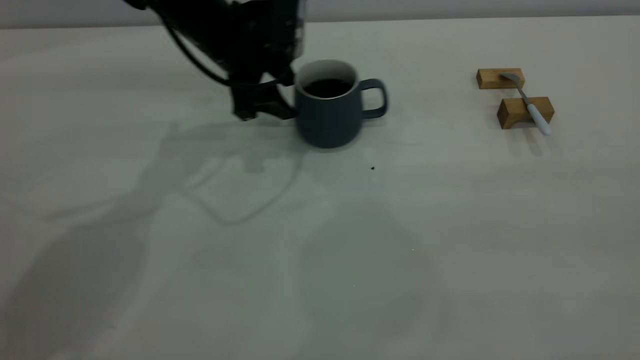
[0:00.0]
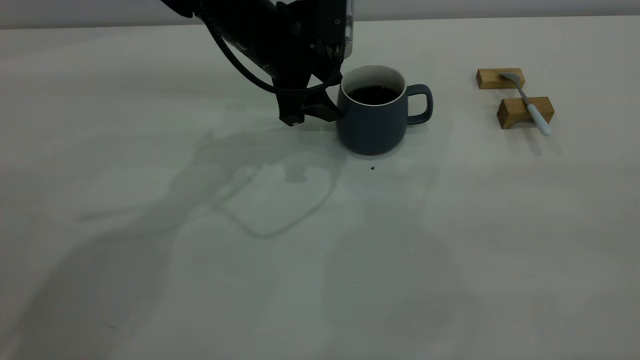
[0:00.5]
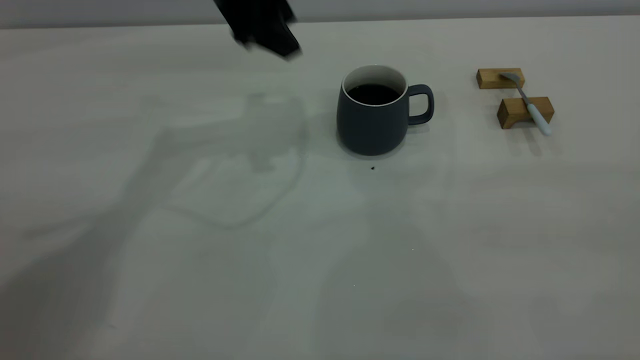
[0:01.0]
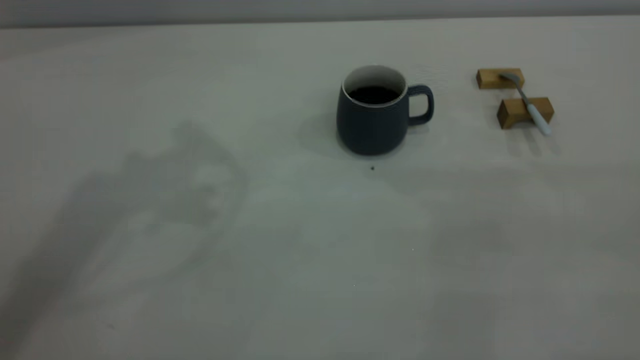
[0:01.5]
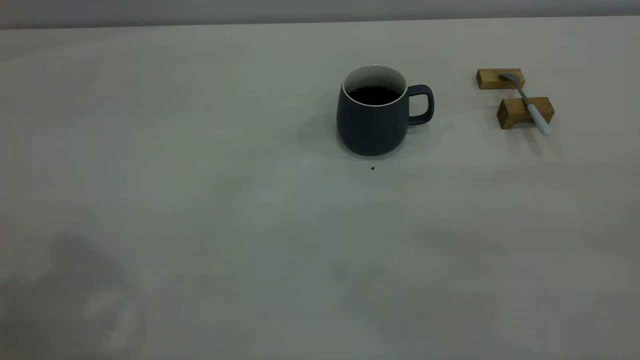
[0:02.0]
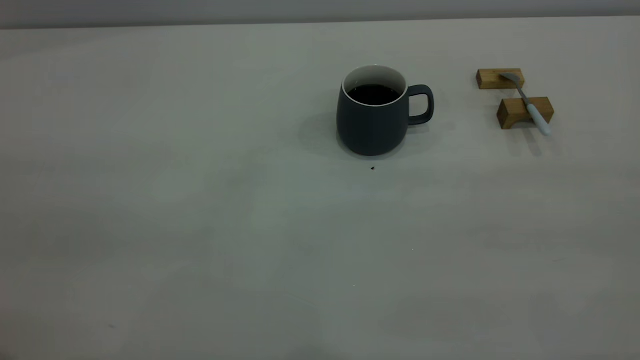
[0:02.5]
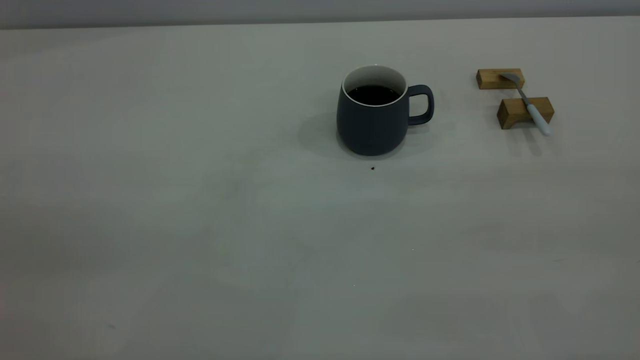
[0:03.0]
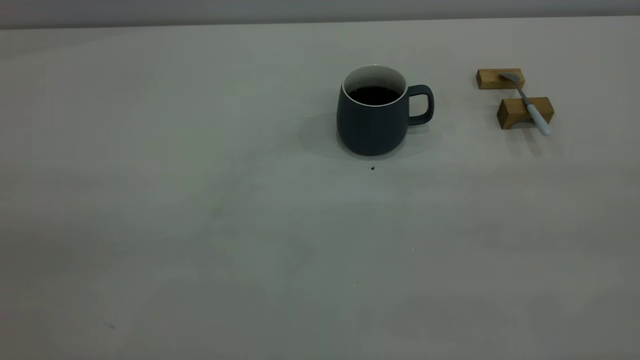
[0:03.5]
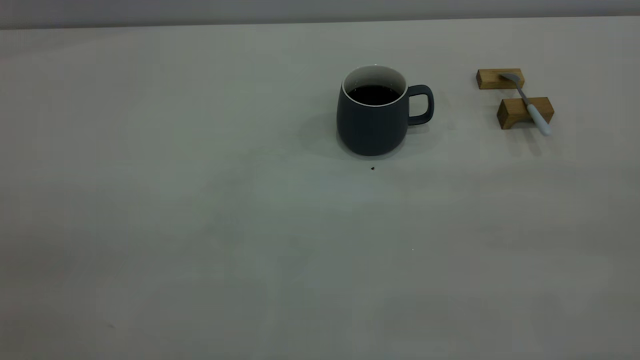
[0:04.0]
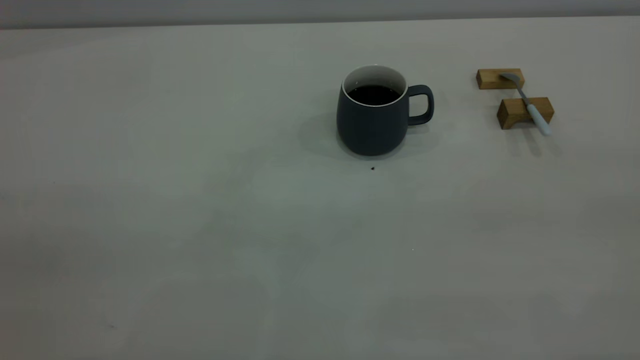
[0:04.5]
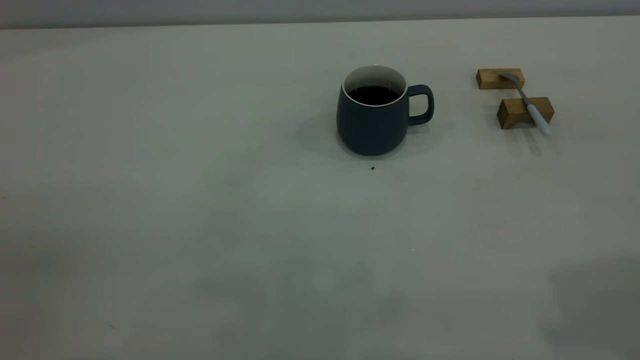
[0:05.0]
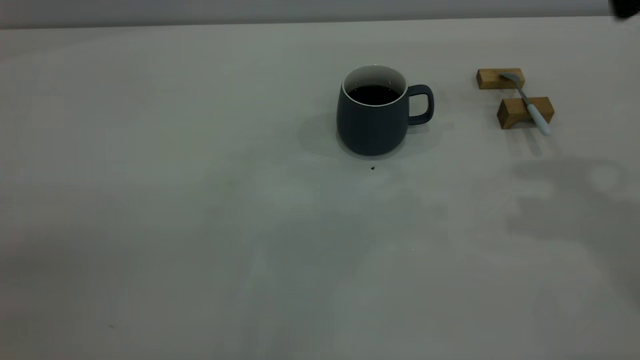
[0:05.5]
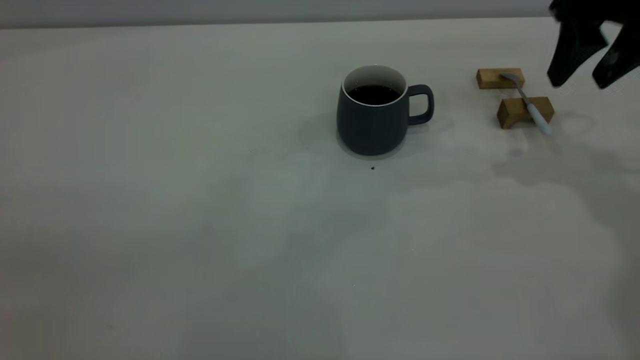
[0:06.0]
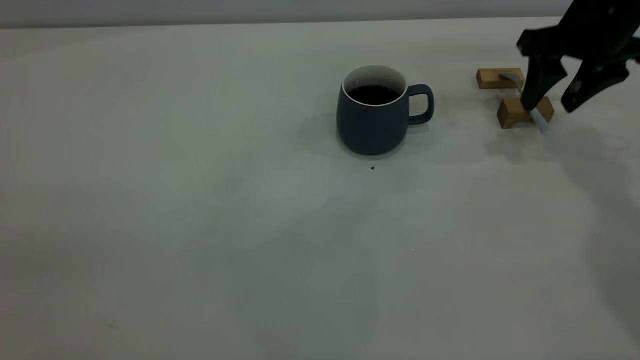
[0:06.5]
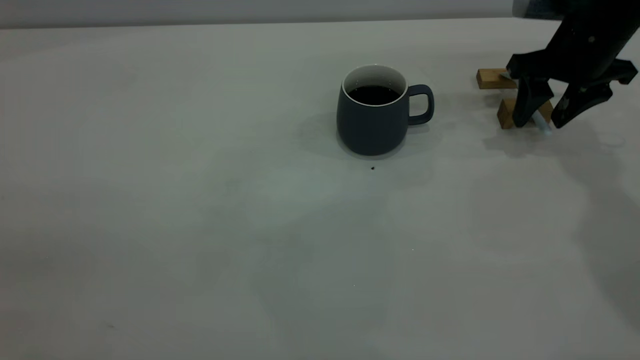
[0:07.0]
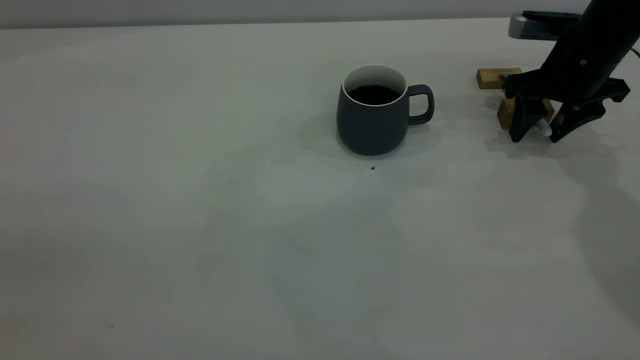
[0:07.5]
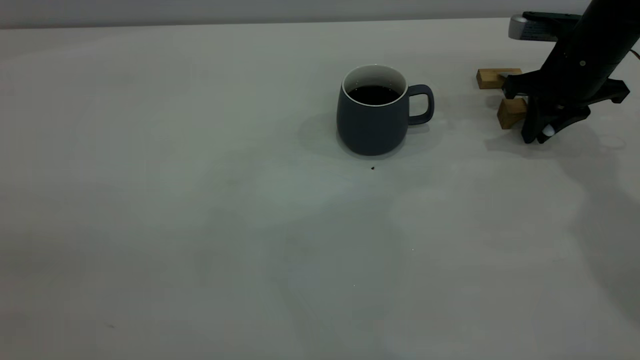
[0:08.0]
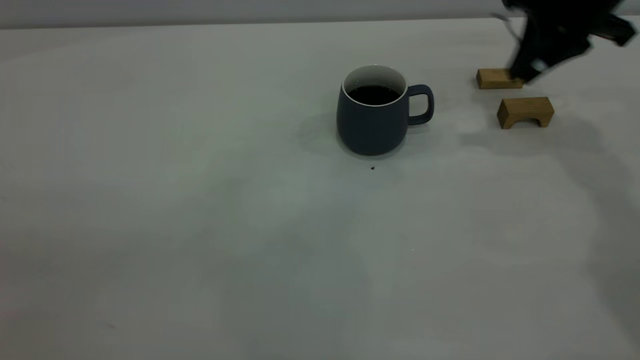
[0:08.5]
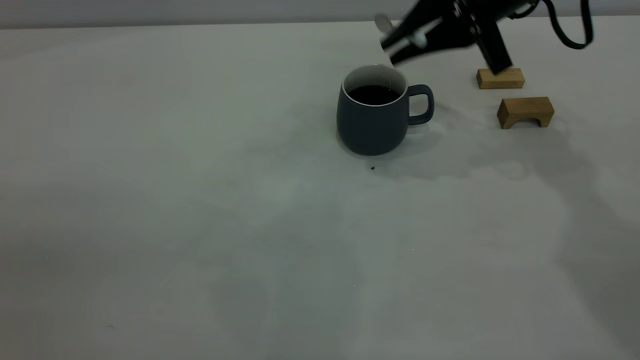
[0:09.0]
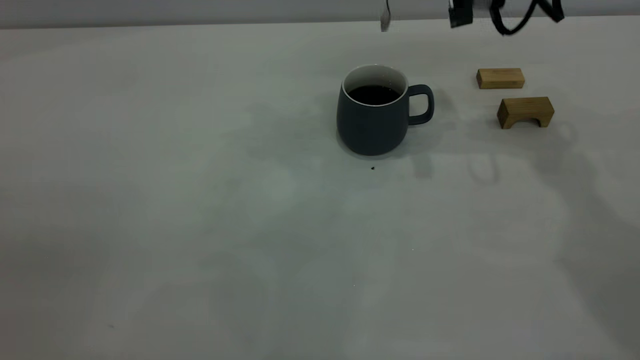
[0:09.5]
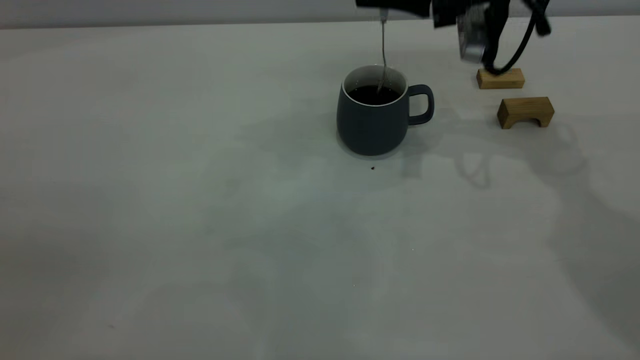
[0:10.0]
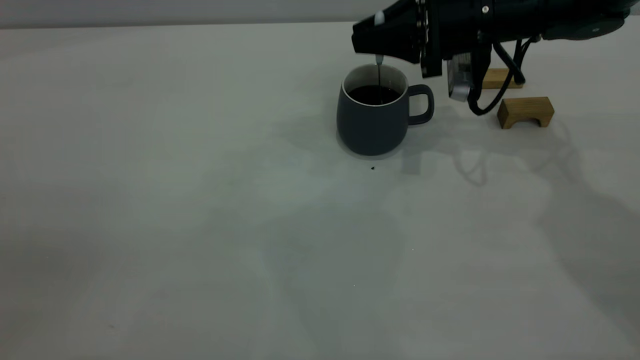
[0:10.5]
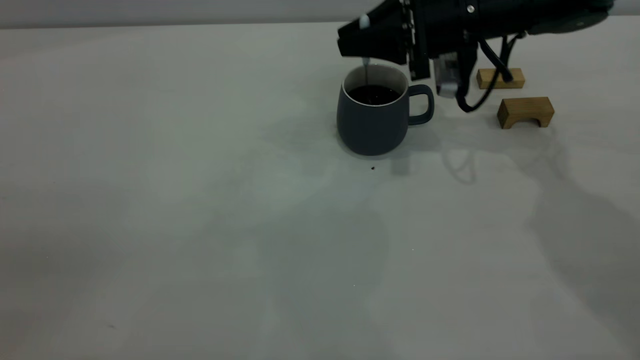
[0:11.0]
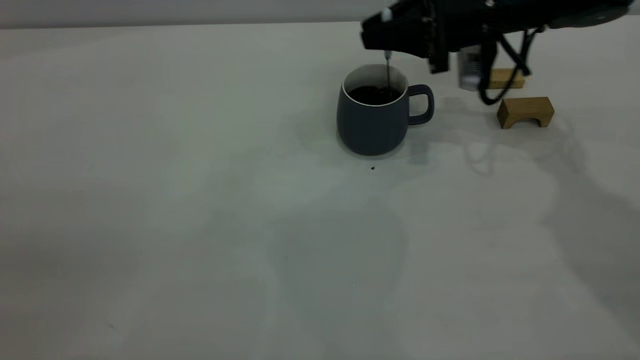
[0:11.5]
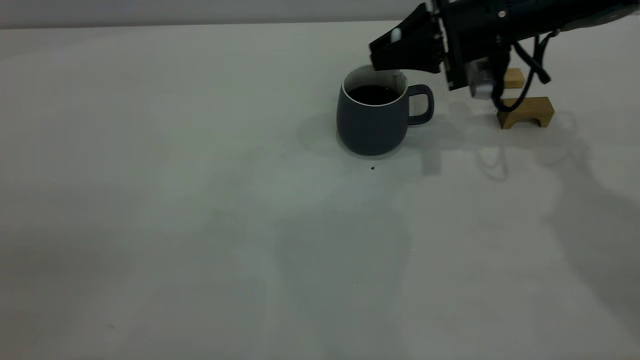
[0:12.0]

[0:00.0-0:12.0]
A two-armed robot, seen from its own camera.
Step, 0:01.0 to 0:08.0: Pick up the spoon.
0:00.0 to 0:02.0: The left gripper moves upward and backward, approximately 40 cm.
0:04.0 to 0:06.0: The right gripper moves forward, some 40 cm, and opens.
0:06.0 to 0:08.0: The right gripper moves downward, roughly 10 cm, and closes its fingers.
0:08.0 to 0:10.0: The right gripper moves to the left and upward, roughly 15 cm.
0:10.0 to 0:12.0: The right gripper moves some 5 cm.

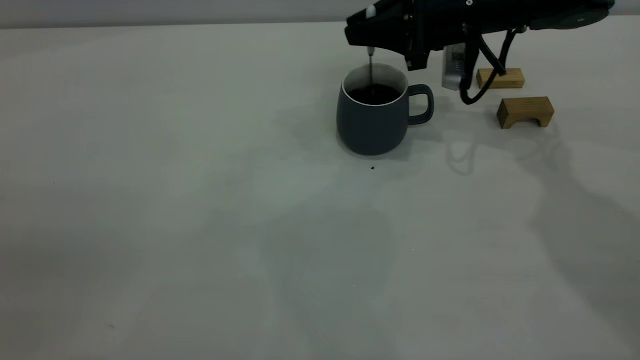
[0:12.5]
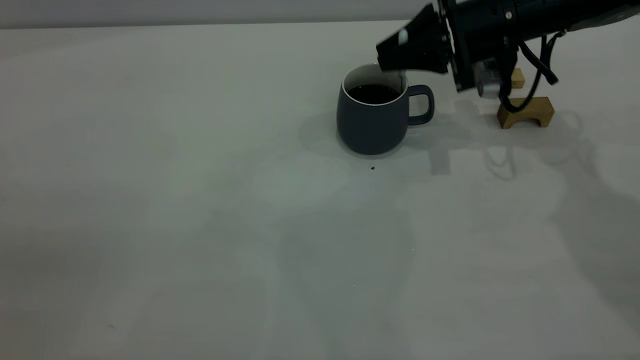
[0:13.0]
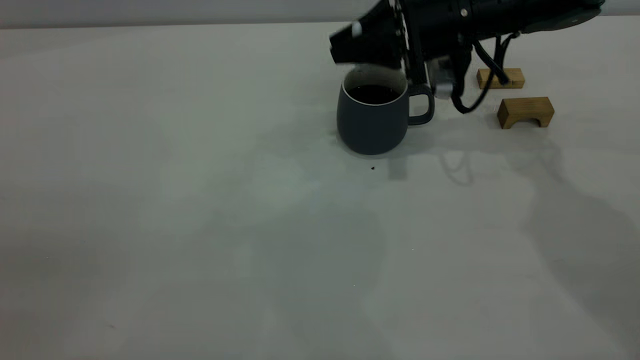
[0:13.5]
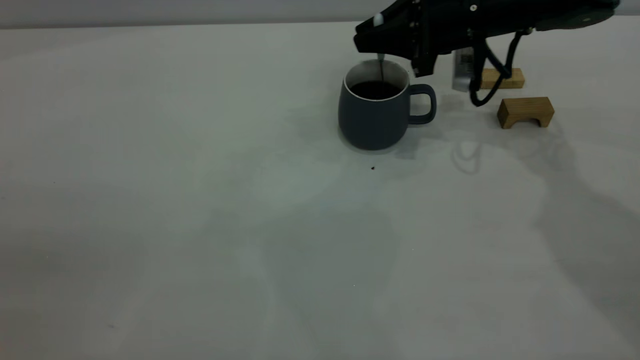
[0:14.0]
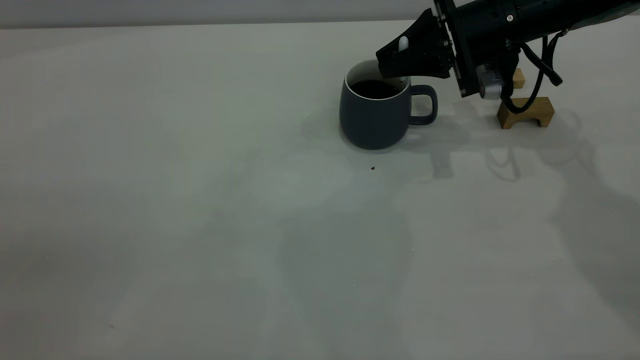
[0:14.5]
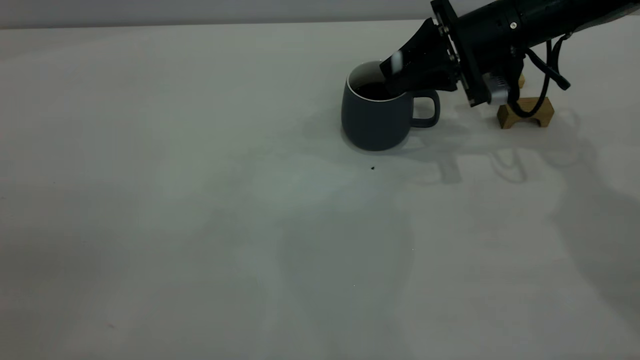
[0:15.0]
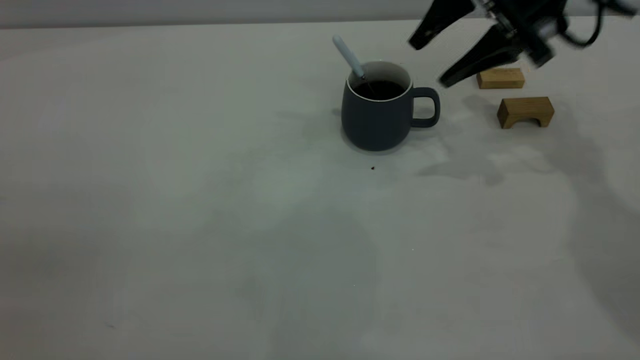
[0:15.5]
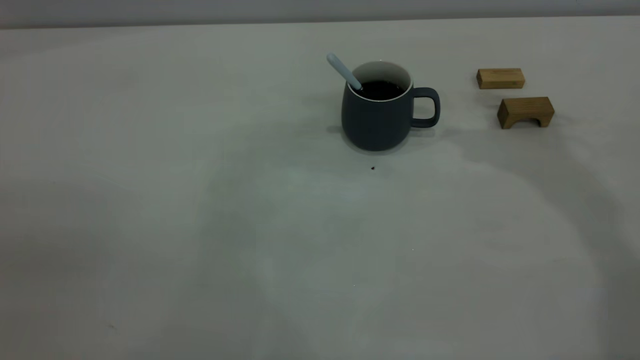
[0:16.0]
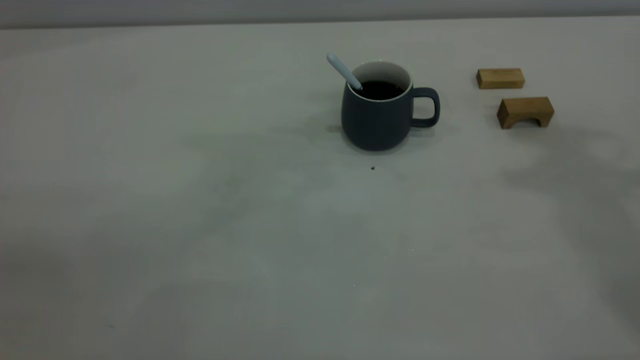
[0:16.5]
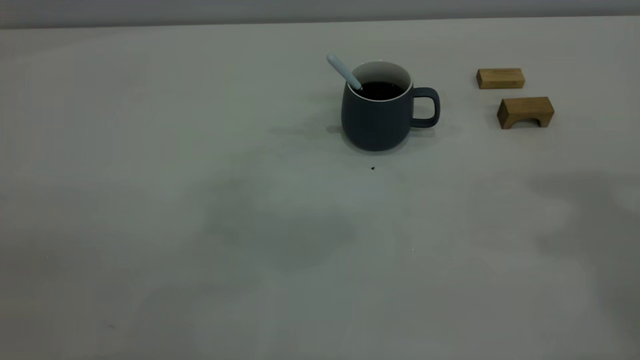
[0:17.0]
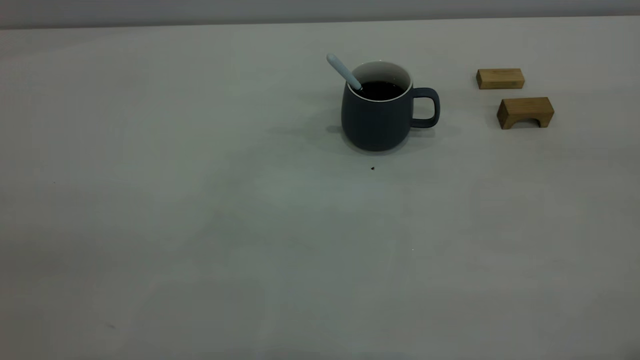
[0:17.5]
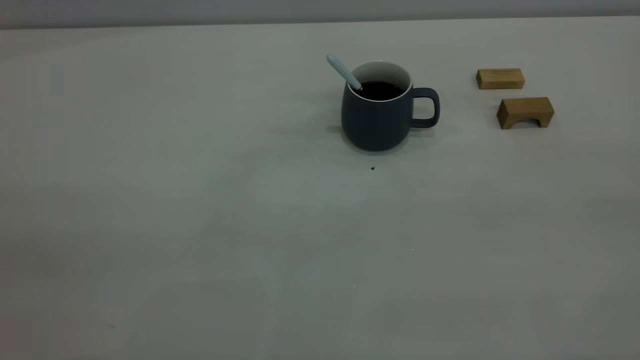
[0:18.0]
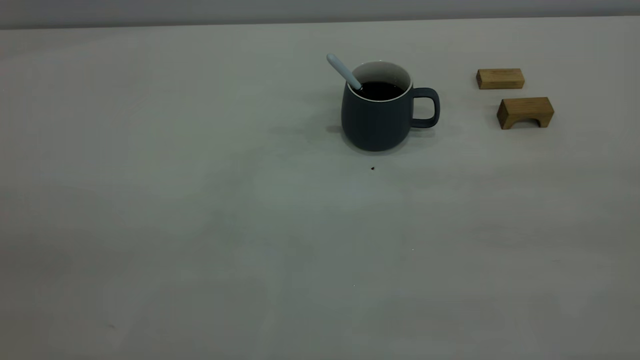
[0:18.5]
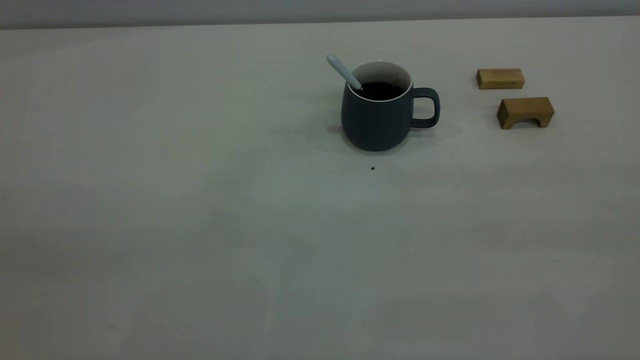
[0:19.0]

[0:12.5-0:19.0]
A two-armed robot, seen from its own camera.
Step, 0:12.5 to 0:15.0: Stir the coffee in the cup.
0:12.5 to 0:14.5: There are only small adjustments of the grippers.
0:14.5 to 0:17.0: The right gripper shifts about 40 cm upward and backward, and opens and closes again.

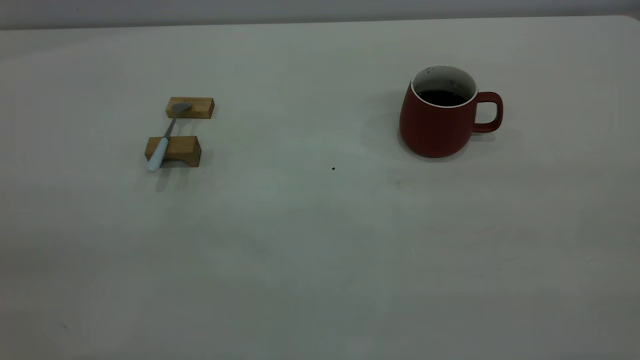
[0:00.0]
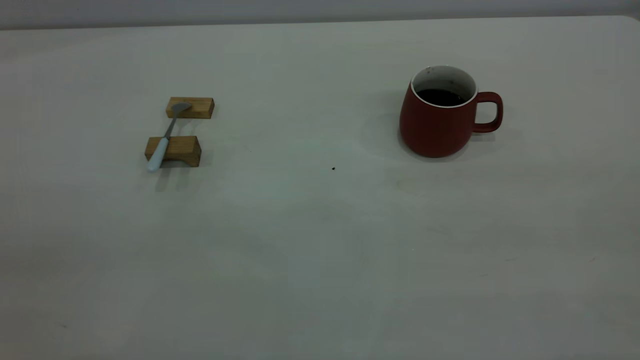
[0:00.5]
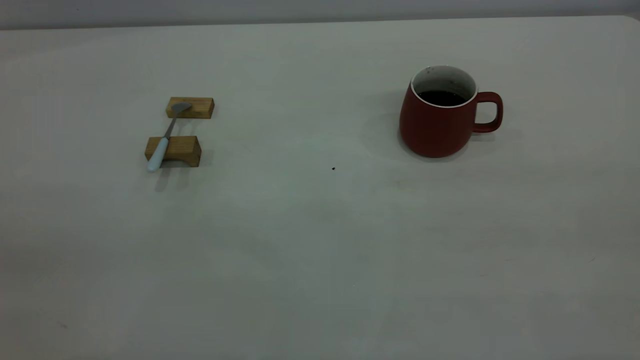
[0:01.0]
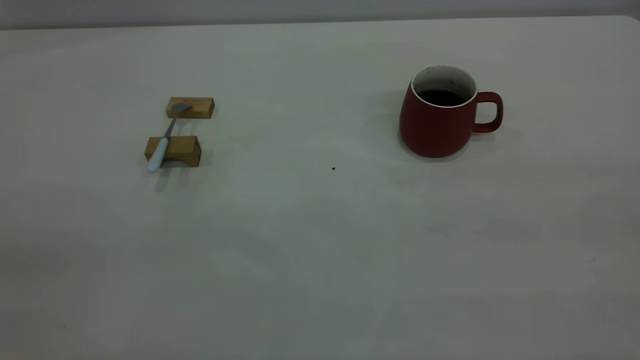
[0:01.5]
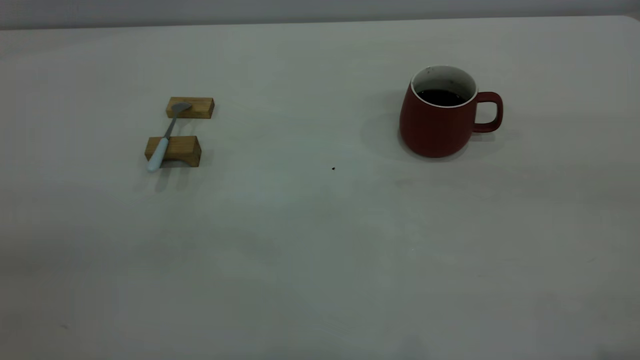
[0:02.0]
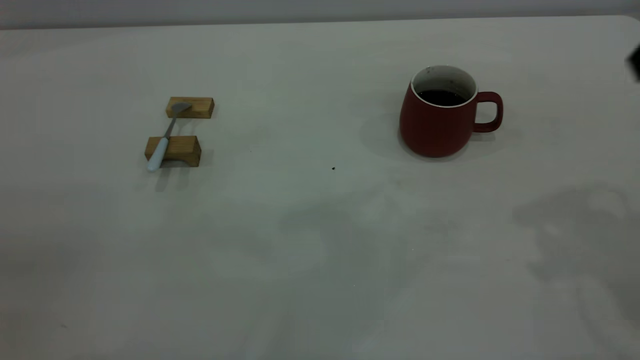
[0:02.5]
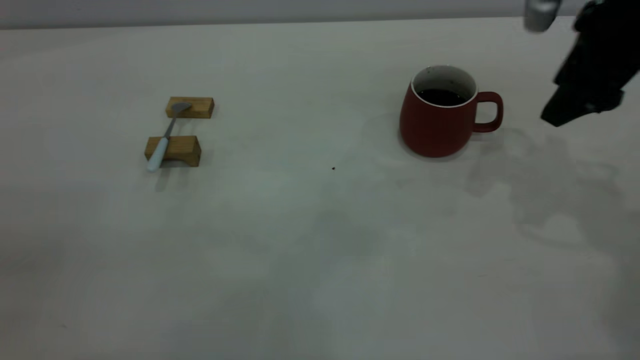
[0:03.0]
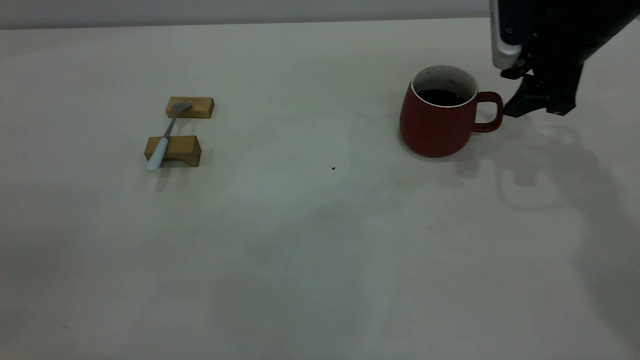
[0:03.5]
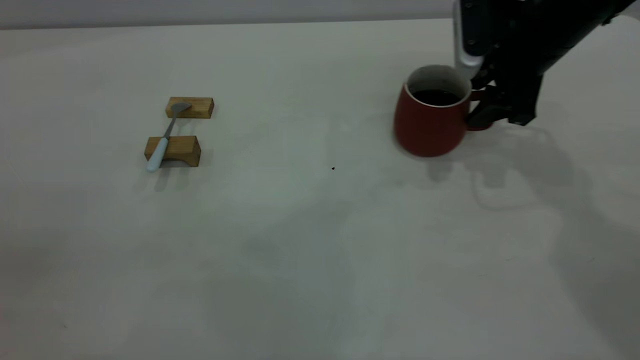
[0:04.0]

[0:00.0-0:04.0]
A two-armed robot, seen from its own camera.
0:02.0 to 0:04.0: The right gripper shifts approximately 40 cm forward and downward.
